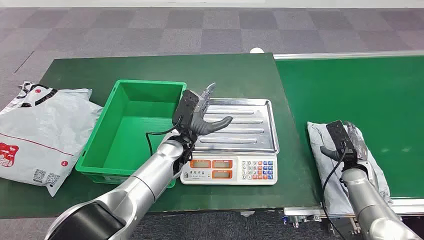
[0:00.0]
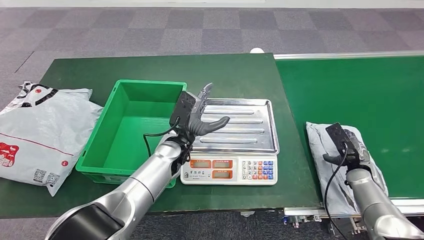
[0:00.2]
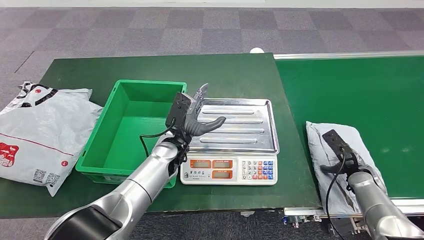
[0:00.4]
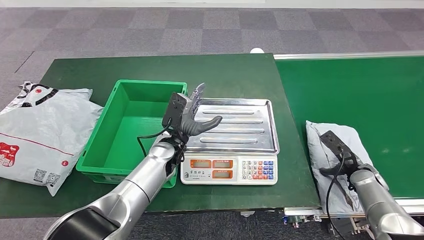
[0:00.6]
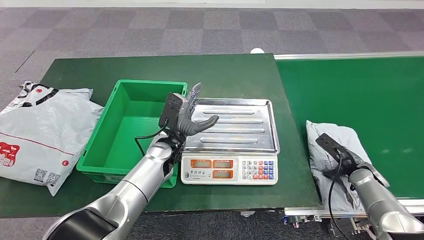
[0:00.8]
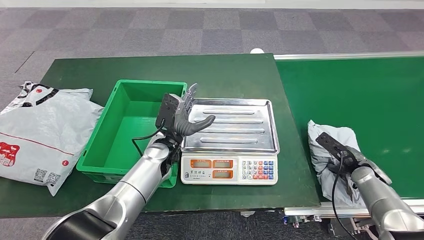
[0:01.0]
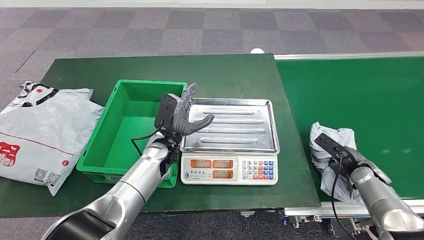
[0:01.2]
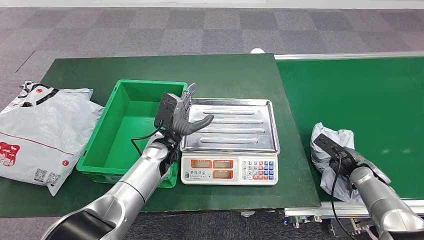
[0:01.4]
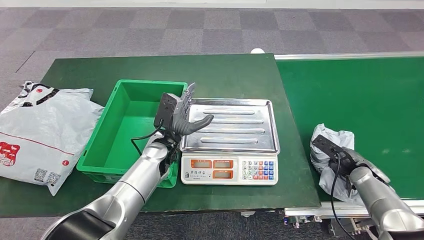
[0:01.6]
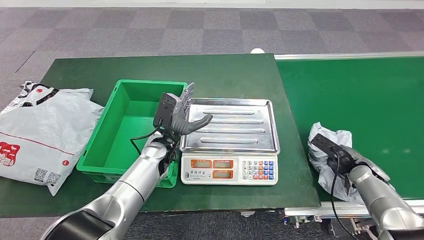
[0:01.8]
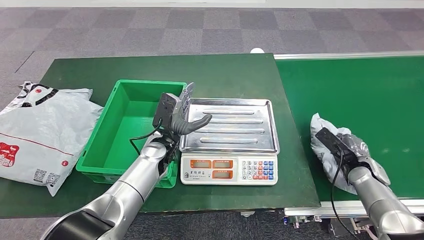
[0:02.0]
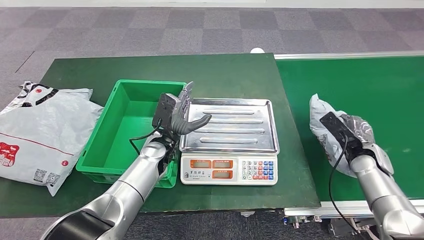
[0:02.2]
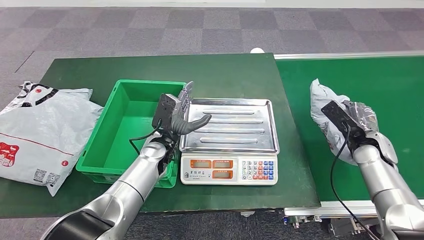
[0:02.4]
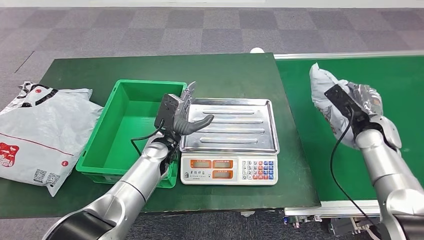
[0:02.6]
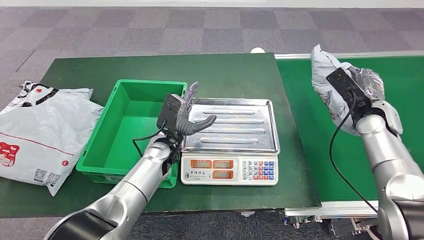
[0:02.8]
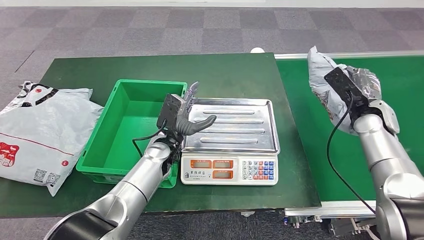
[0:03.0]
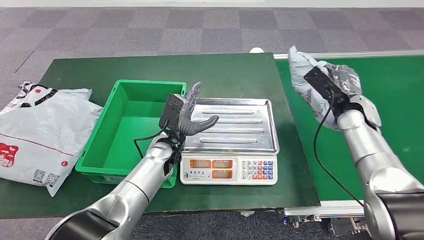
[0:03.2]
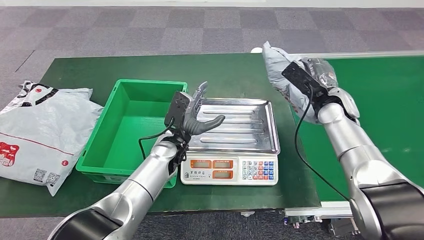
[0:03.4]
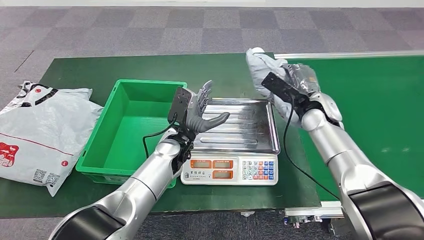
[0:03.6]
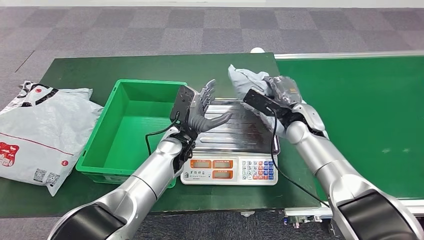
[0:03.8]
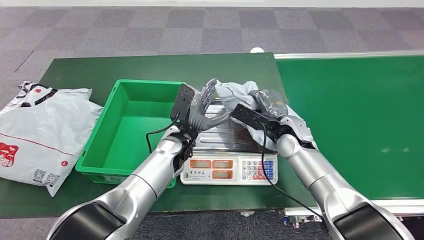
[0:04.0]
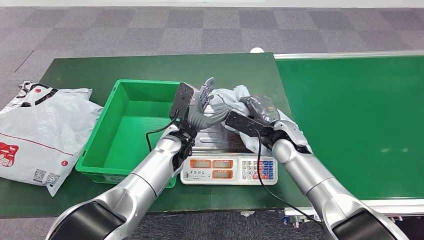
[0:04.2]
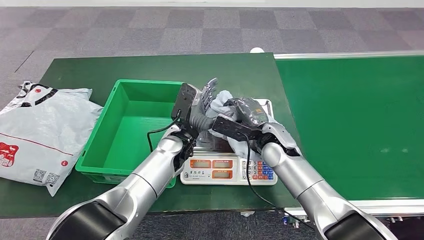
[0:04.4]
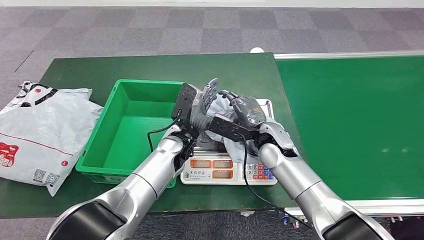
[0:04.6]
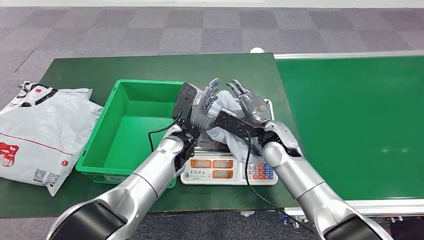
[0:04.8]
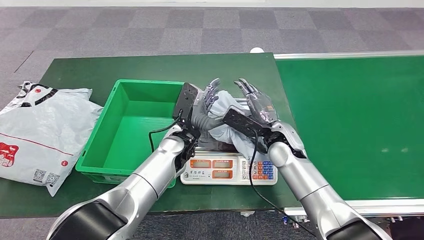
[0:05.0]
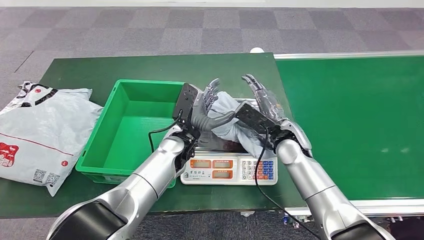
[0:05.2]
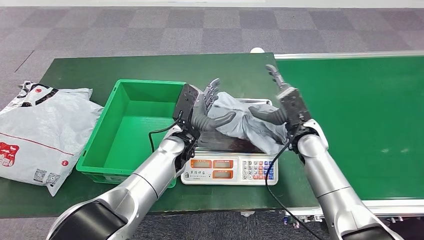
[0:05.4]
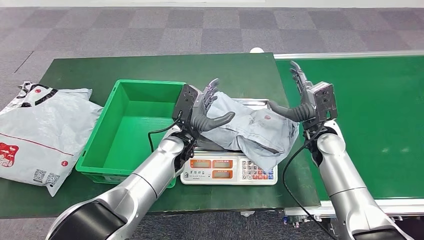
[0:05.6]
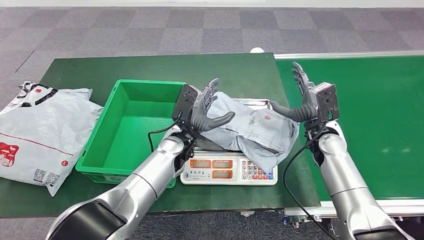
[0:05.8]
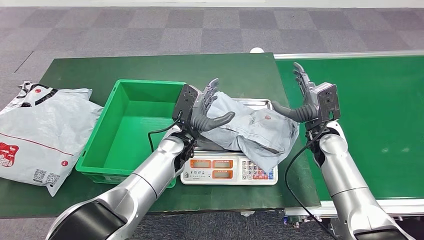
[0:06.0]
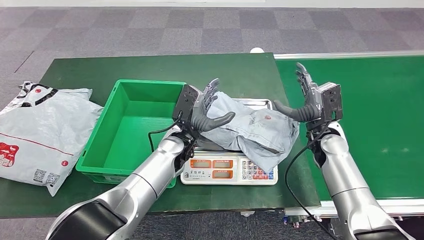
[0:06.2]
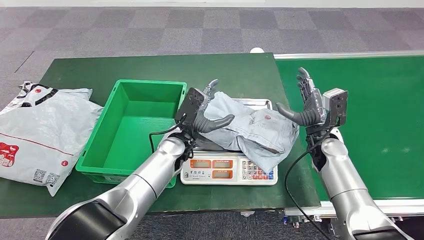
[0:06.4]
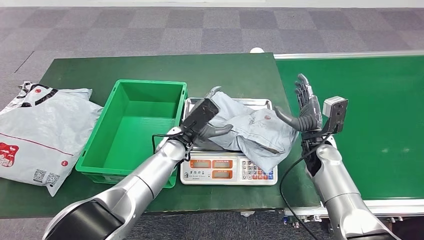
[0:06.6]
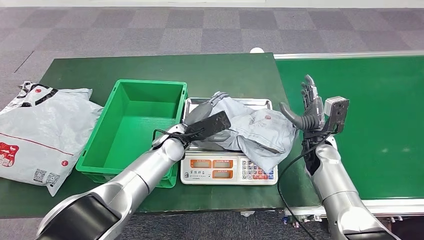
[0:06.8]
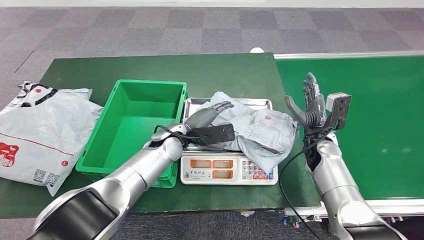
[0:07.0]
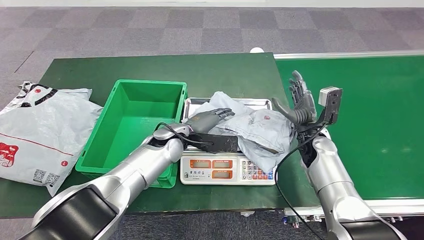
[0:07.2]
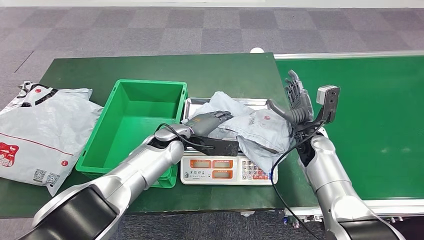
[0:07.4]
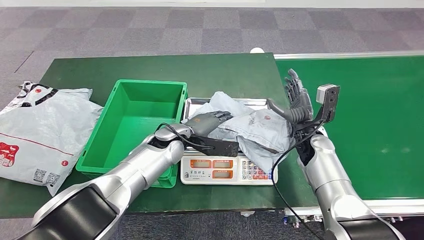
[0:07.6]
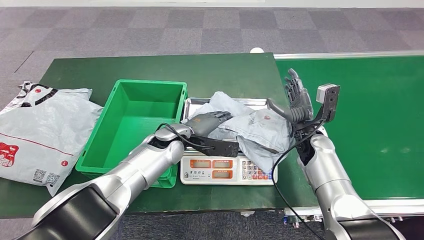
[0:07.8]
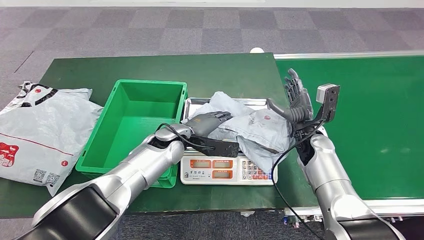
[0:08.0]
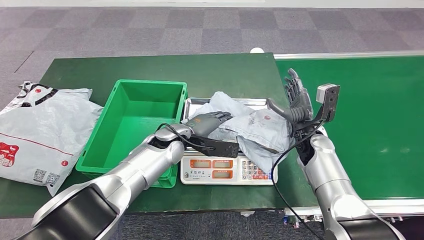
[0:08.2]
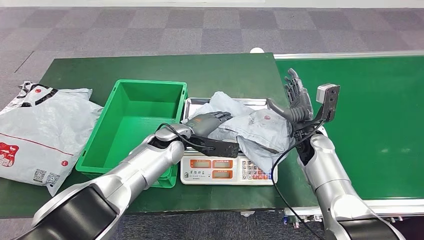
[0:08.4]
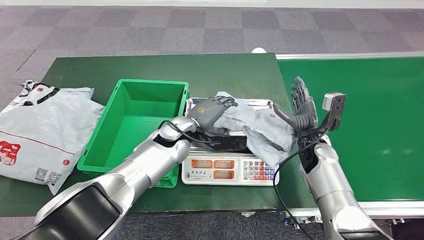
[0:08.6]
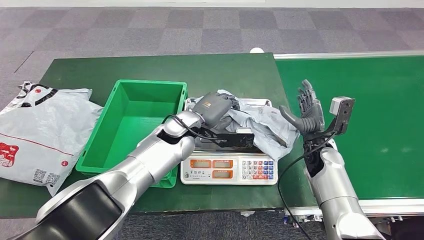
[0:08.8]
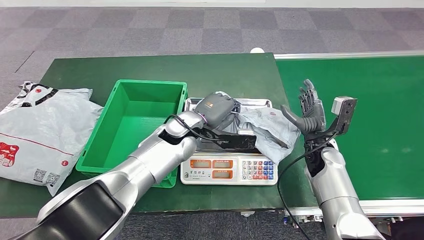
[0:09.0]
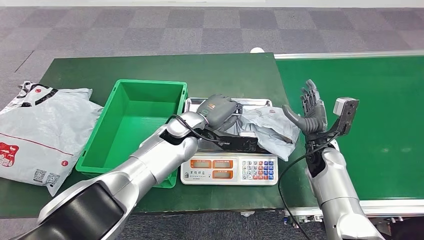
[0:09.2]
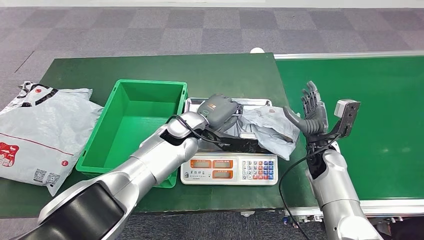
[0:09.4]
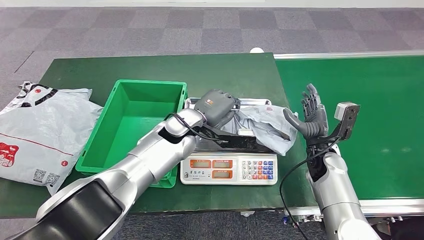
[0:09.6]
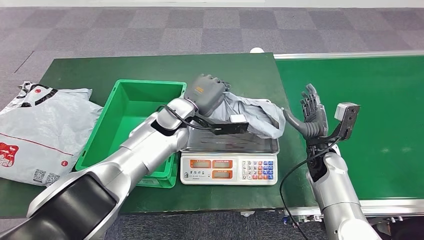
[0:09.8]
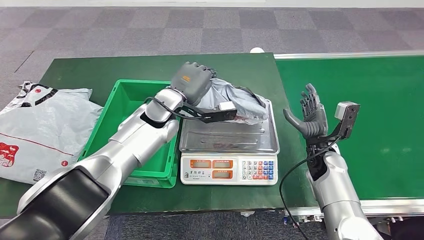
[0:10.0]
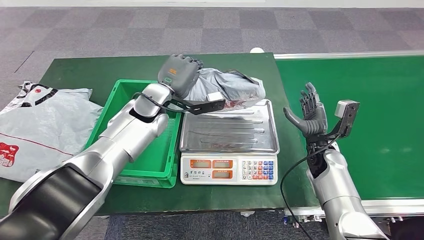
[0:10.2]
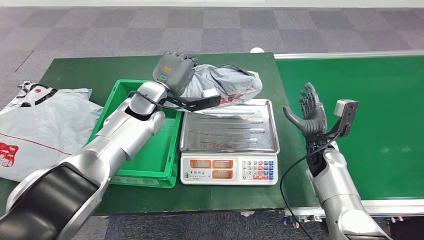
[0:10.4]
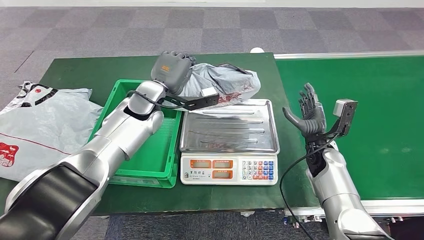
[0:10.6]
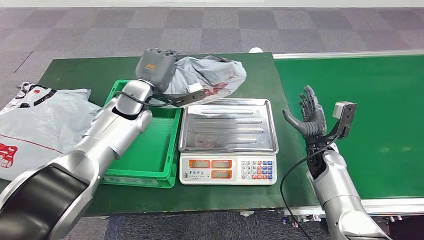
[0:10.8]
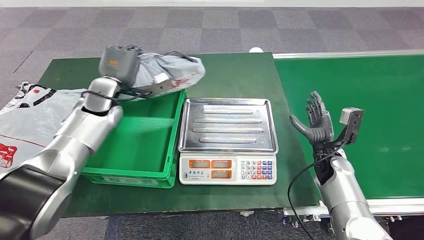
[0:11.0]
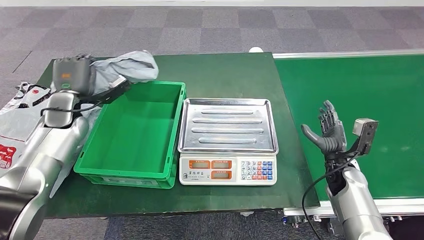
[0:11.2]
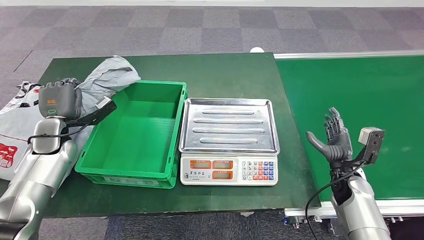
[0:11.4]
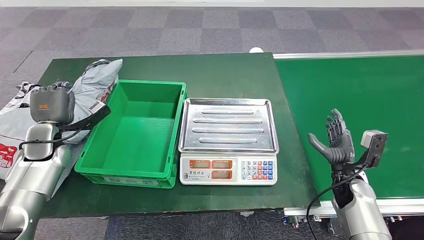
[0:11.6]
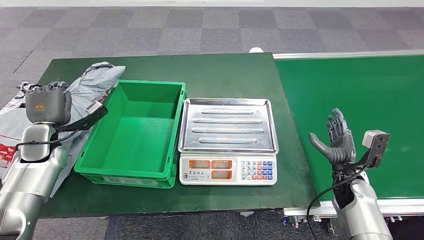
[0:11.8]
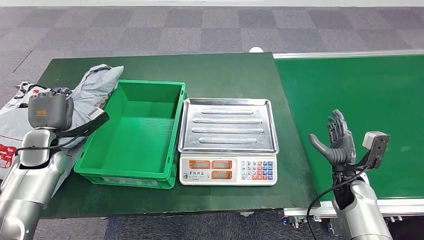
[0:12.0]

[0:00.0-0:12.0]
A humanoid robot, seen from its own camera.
Step, 0:00.0 to 0:02.6: Take the parcel off the conveyor belt.
Step, 0:02.8 to 0:06.0: Place the parcel onto the inbound machine.
Step, 0:06.4 to 0:10.2: Pick up the parcel from the inbound machine.
0:01.6 to 0:03.0: The right hand heads upward and forward, covering roughly 20 cm.
0:04.4 to 0:06.0: The right hand travels to the right by roughly 15 cm.
0:07.6 to 0:09.0: The left hand ends up some 5 cm from where it was.

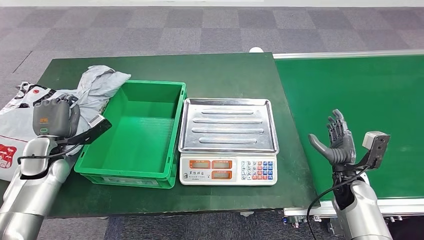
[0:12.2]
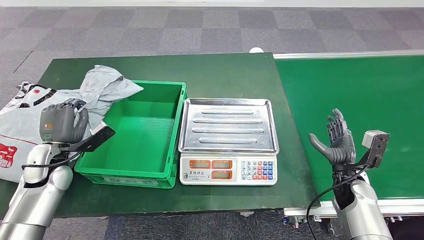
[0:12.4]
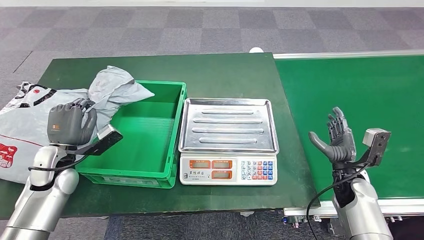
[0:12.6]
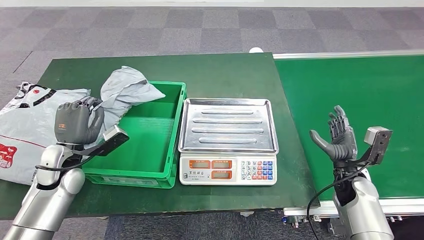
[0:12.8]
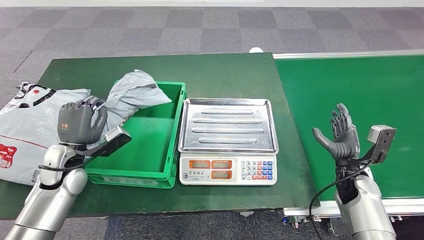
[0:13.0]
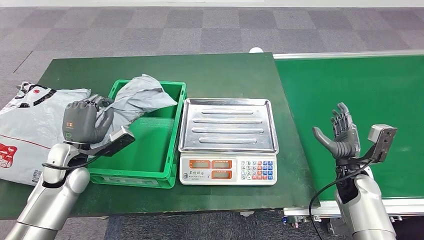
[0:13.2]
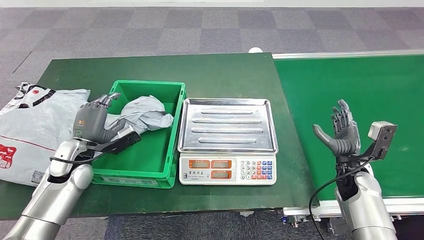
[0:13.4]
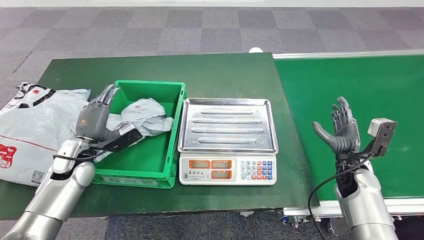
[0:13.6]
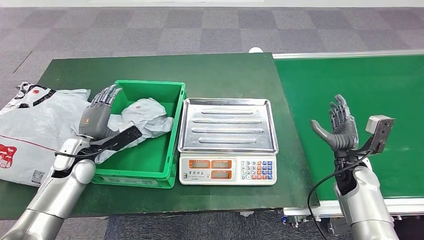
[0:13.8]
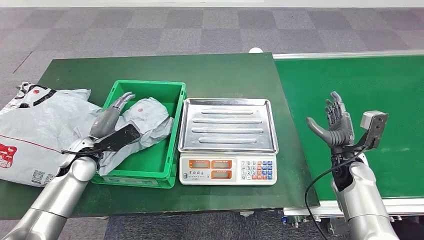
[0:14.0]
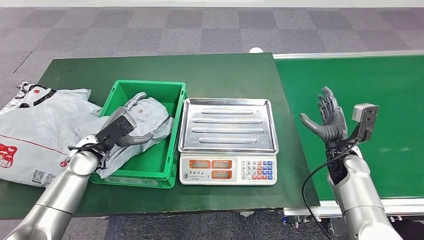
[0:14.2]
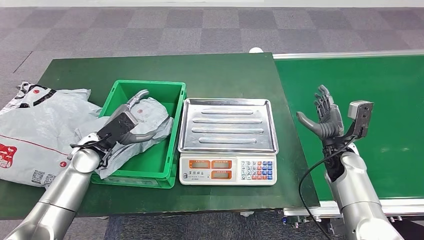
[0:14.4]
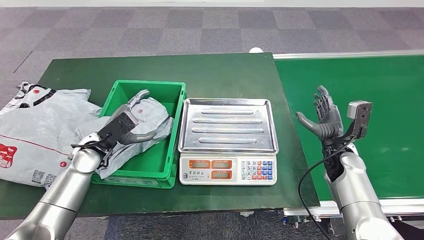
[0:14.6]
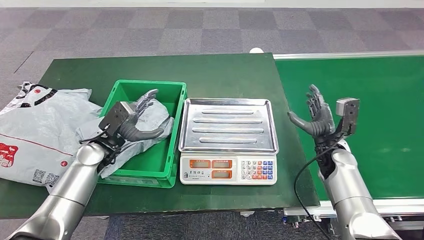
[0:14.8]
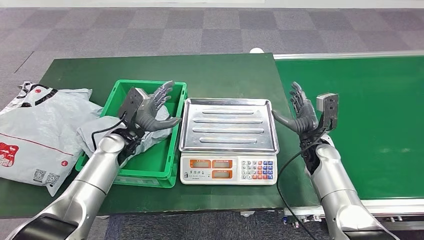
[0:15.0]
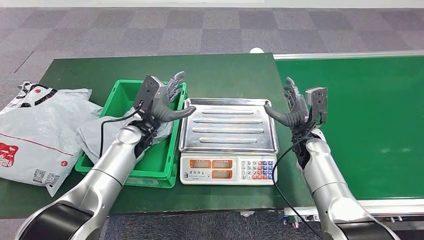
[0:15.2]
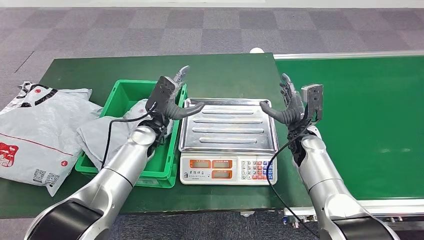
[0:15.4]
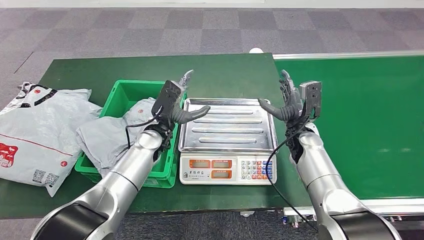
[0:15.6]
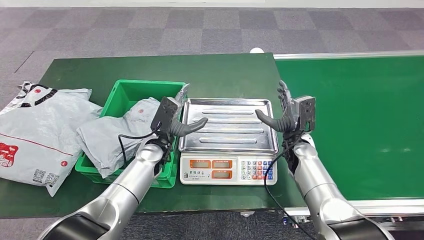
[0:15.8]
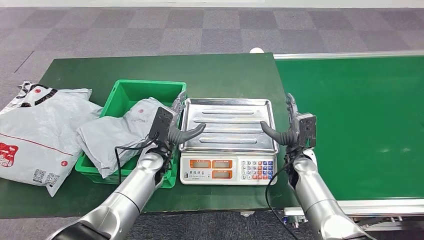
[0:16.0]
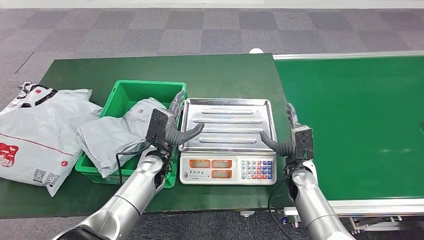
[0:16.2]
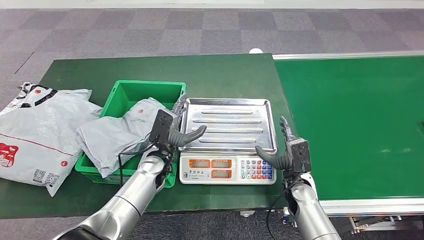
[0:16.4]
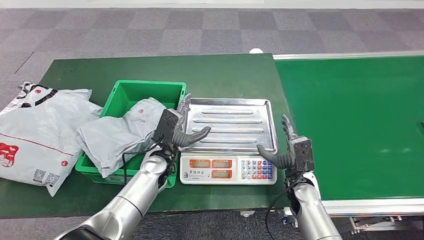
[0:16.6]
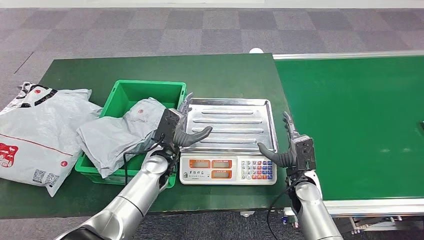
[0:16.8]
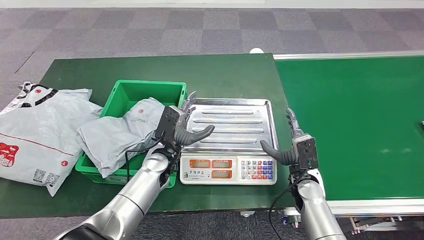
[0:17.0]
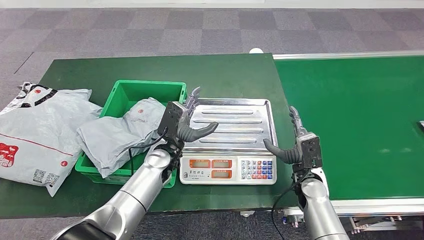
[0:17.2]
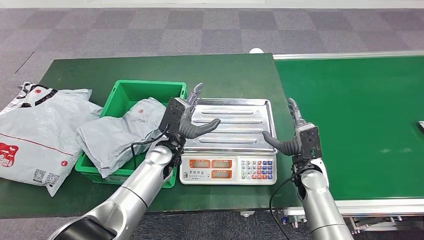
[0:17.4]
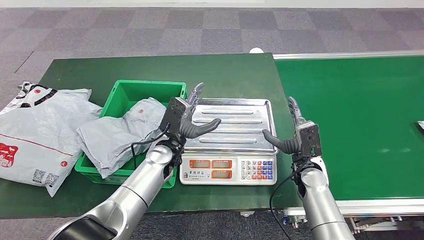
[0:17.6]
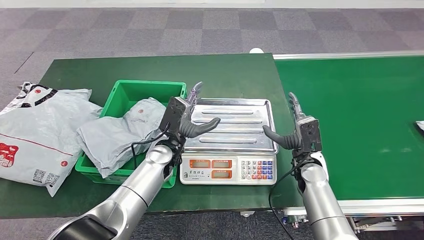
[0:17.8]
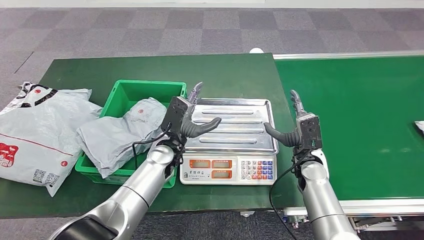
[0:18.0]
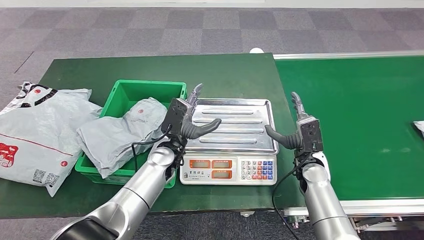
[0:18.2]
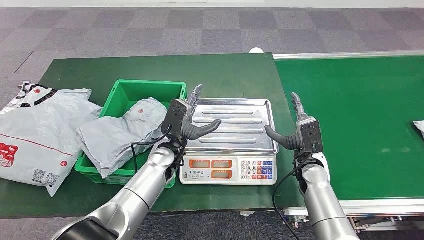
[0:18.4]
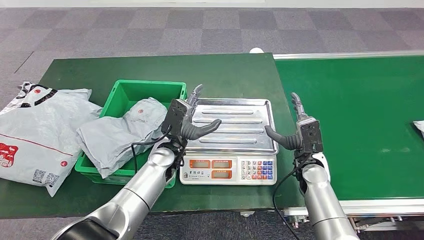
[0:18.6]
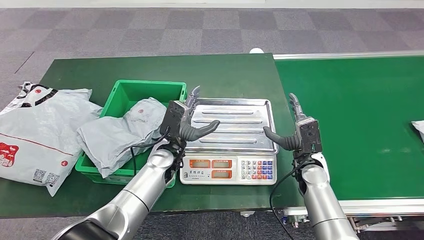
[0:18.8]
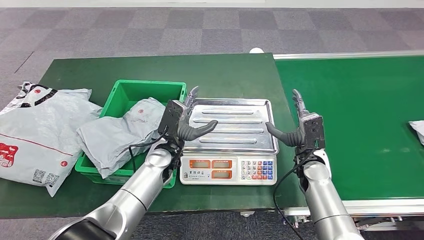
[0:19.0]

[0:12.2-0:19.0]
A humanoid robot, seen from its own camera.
Step, 0:12.2 to 0:15.2: Put the parcel inside the courier box.
0:12.2 to 0:13.6: The left hand goes approximately 10 cm to the right.
0:15.0 to 0:16.2: The left hand is displaced to the right by roughly 10 cm. The right hand shifts some 10 cm downward and backward.
0:16.2 to 0:19.0: The hands move only a little.
